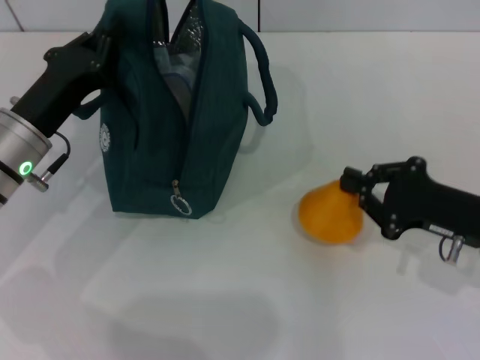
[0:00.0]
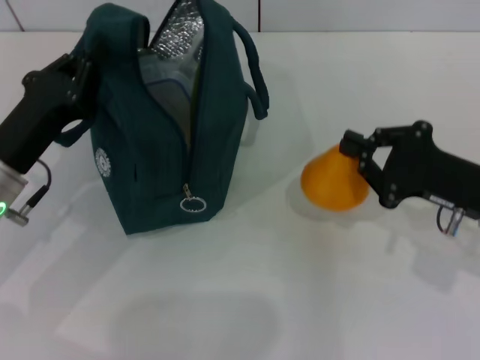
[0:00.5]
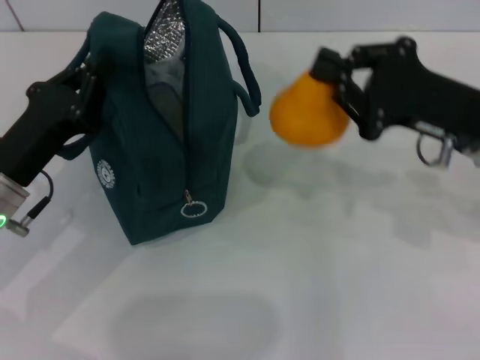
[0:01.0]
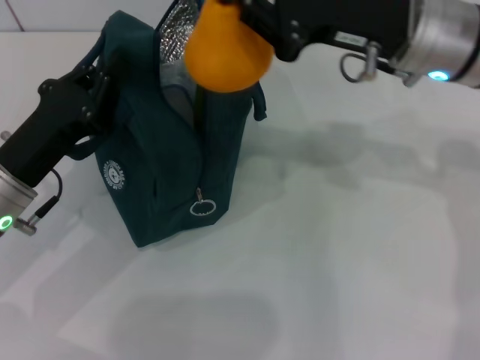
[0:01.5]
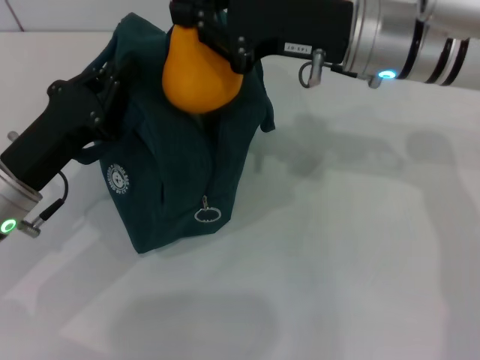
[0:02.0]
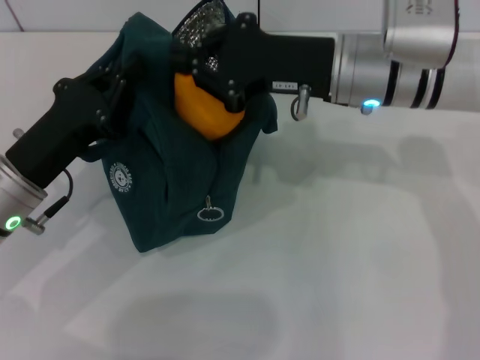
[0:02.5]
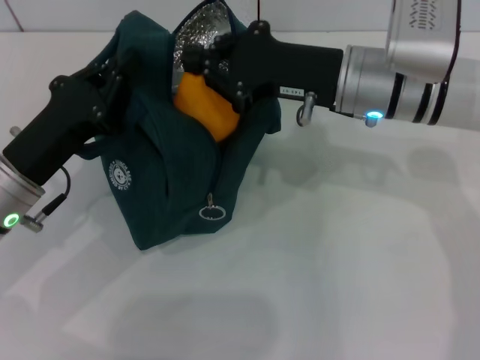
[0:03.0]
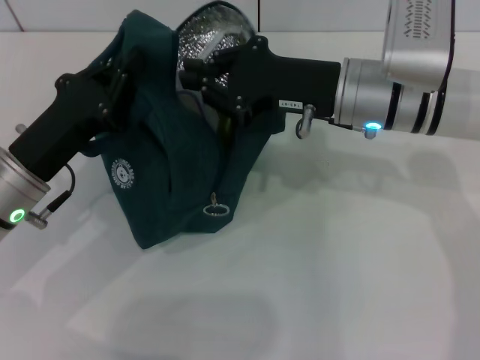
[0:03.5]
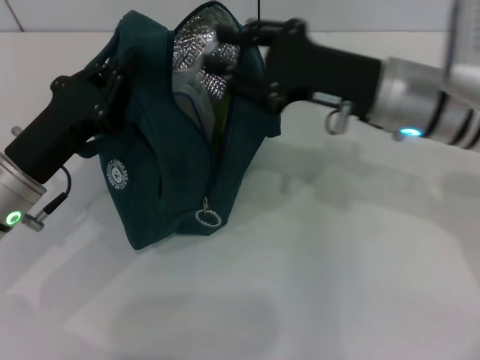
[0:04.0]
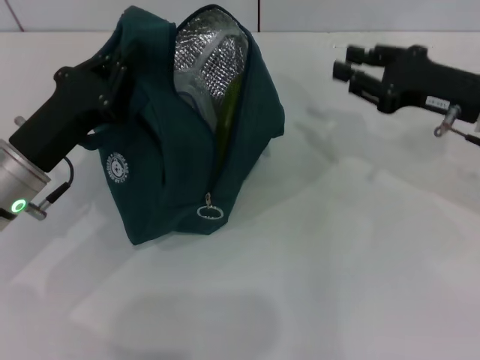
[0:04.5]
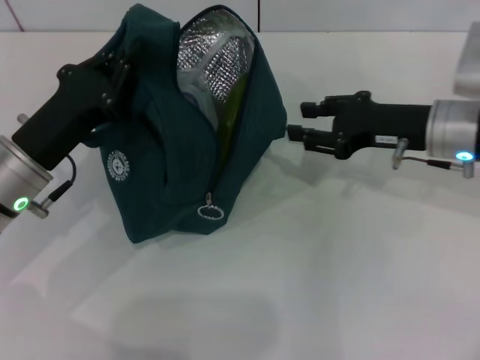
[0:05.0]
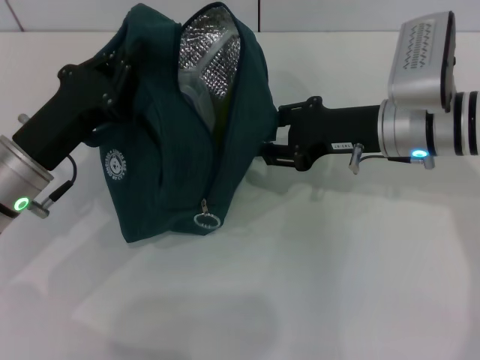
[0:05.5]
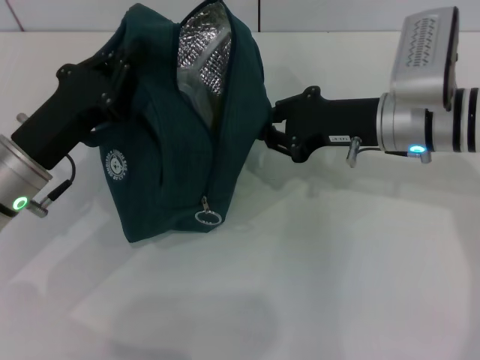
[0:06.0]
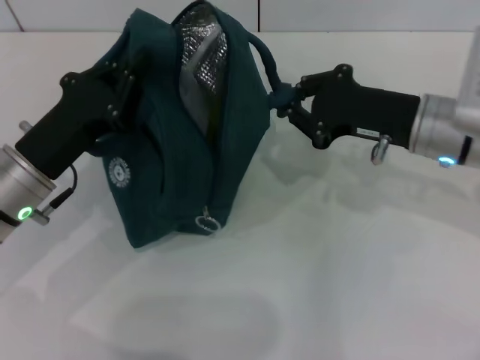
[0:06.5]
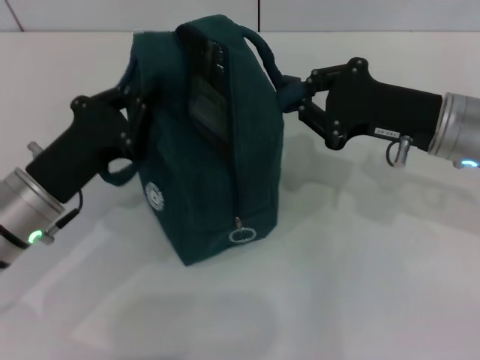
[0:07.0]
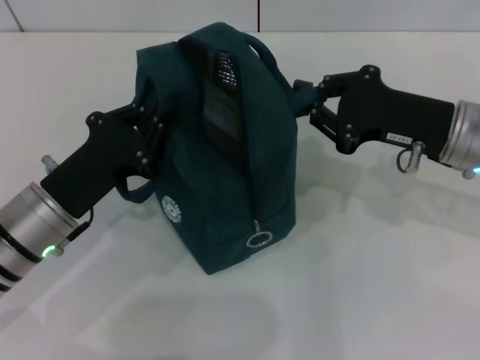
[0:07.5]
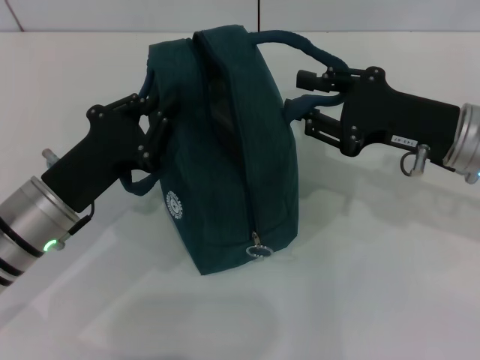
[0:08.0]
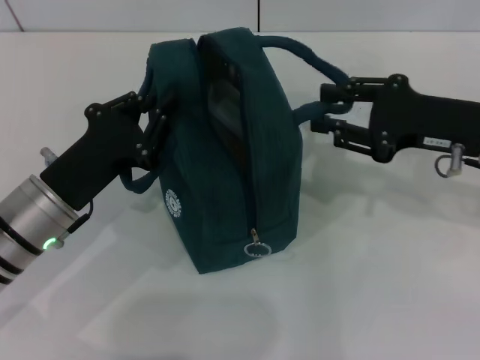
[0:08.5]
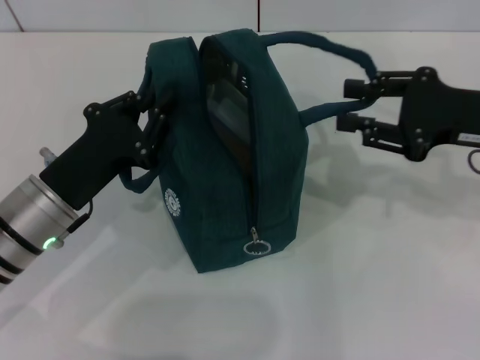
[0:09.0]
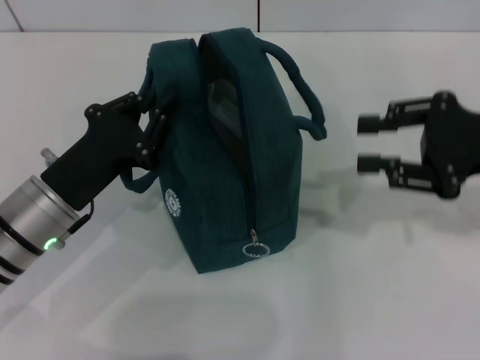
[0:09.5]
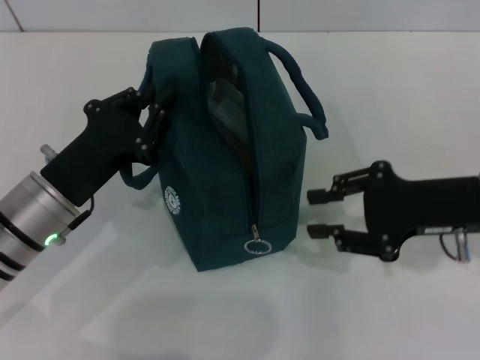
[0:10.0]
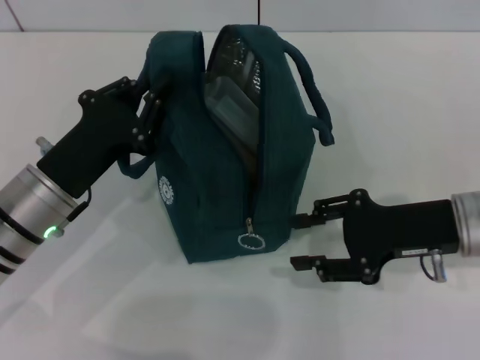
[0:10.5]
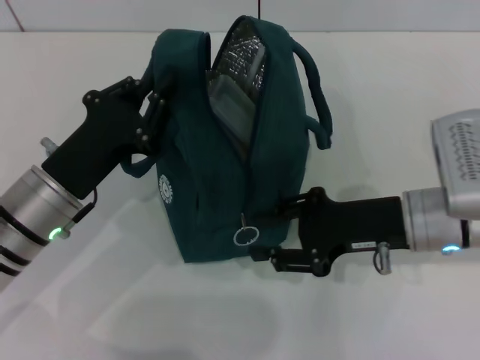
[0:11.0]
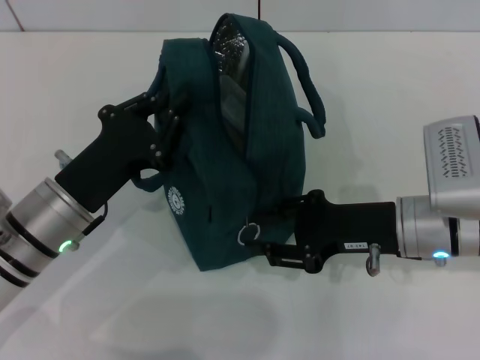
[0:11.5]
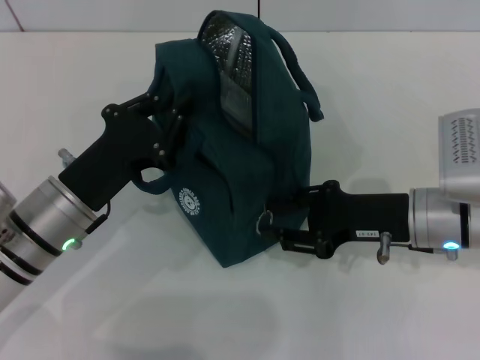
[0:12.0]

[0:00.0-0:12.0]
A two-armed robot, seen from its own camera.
Step, 0:00.0 to 0:03.5: Secure the lunch bag with your left hand.
Step, 0:04.0 to 0:09.0: Hold the lunch bag with your right hand.
0:00.0 to 0:02.0: The left gripper heads backward, covering approximately 5 cm. Meanwhile the right gripper is displaced to the left, upward and forward by about 25 cm.
0:02.0 to 0:04.0: The right gripper shifts by some 5 cm.
0:04.0 to 0:06.0: The right gripper reaches roughly 10 cm to the right, then returns.
0:06.0 to 0:08.0: The right gripper travels to the right by roughly 5 cm.
0:10.0 to 0:12.0: The right gripper moves approximately 5 cm.

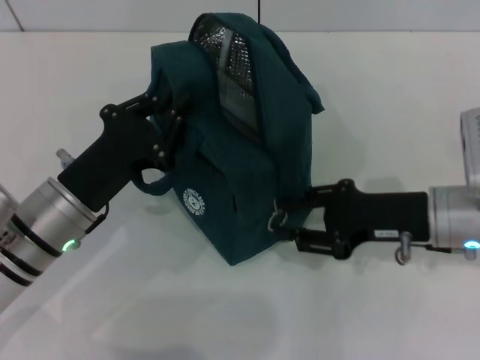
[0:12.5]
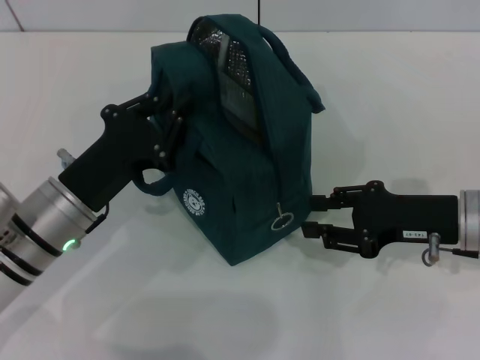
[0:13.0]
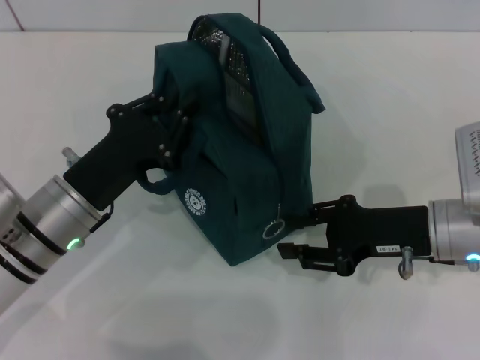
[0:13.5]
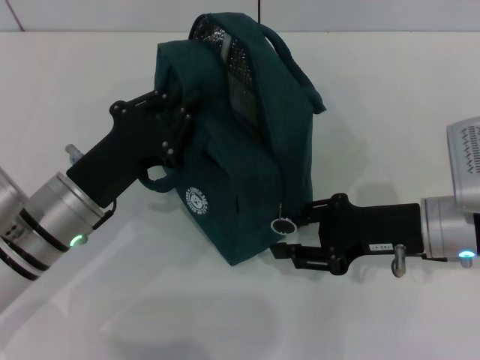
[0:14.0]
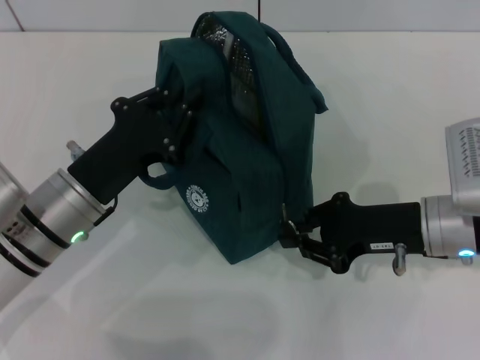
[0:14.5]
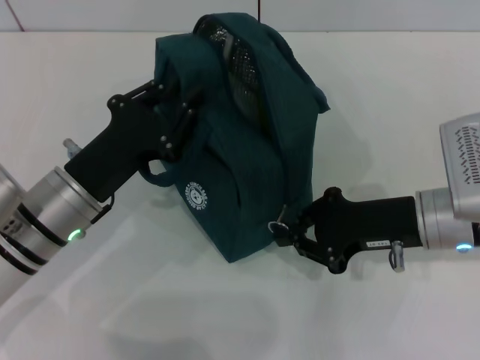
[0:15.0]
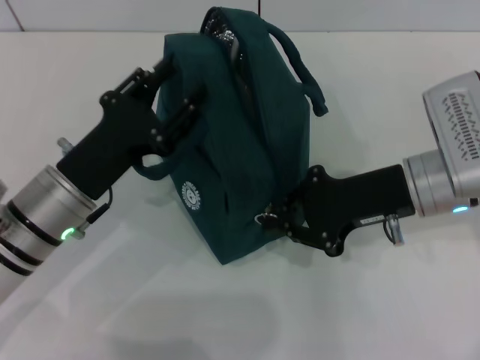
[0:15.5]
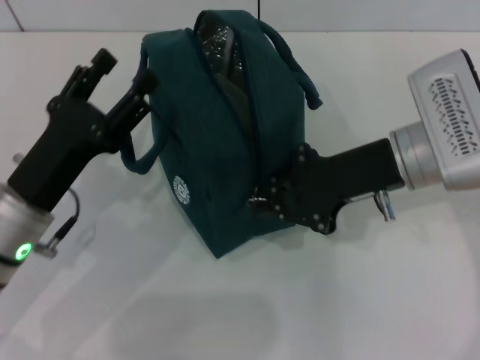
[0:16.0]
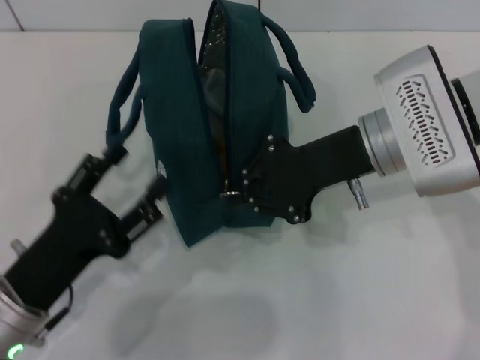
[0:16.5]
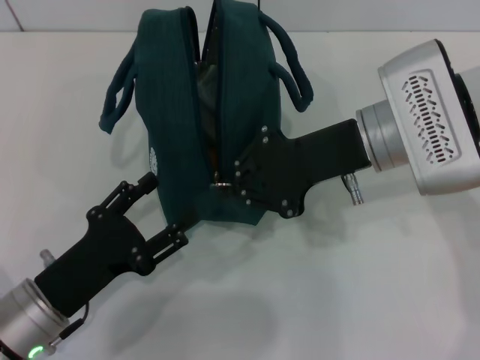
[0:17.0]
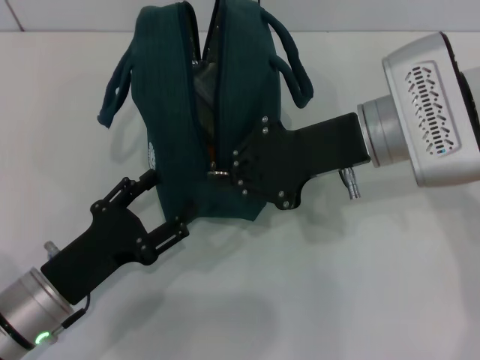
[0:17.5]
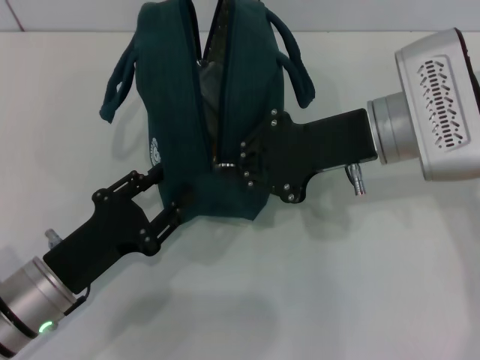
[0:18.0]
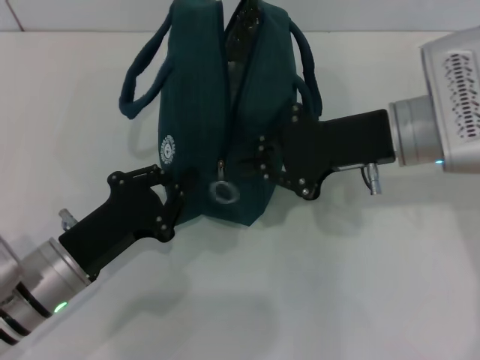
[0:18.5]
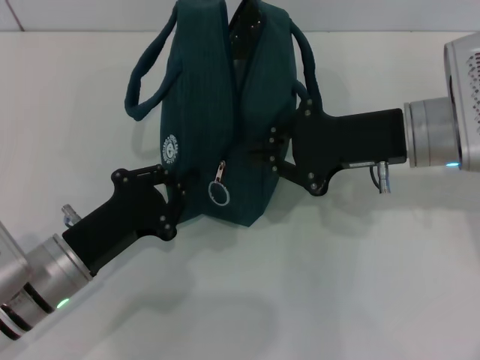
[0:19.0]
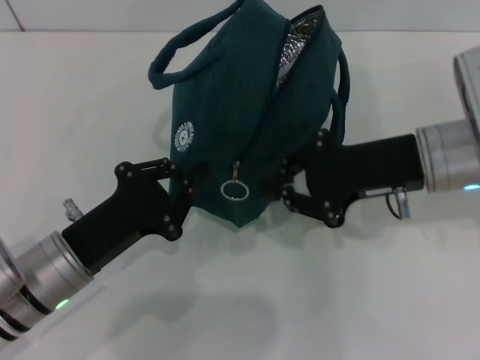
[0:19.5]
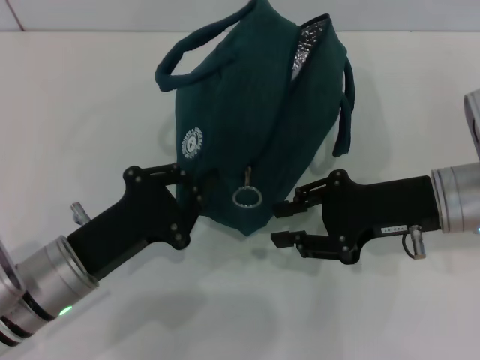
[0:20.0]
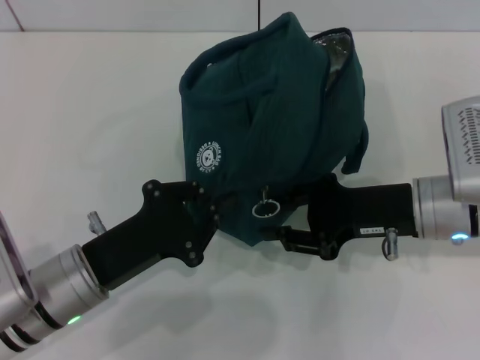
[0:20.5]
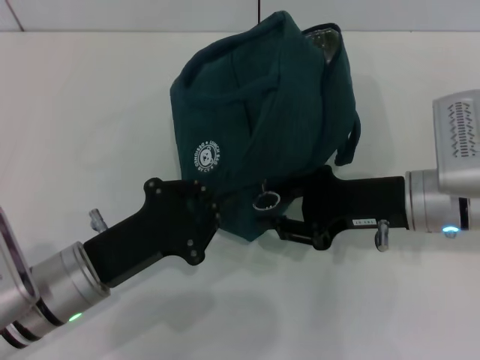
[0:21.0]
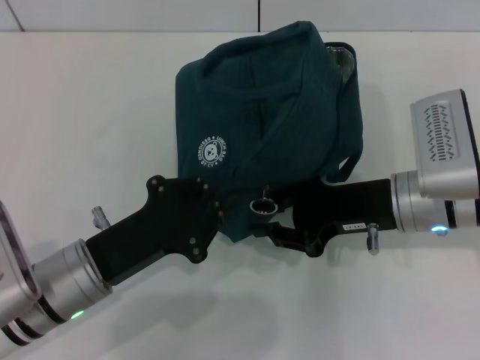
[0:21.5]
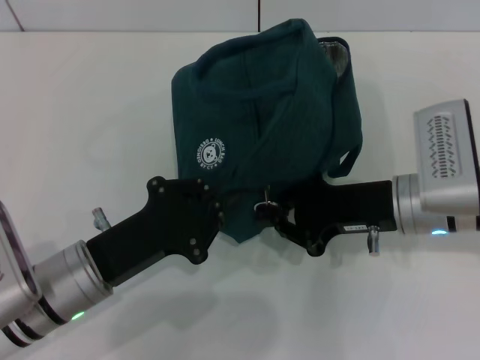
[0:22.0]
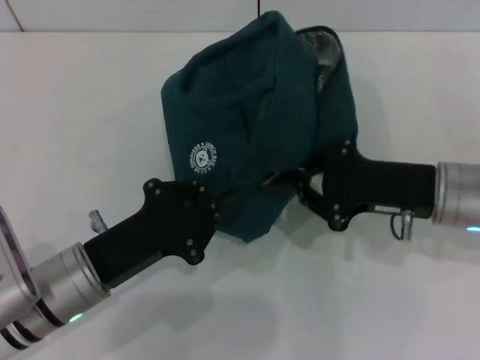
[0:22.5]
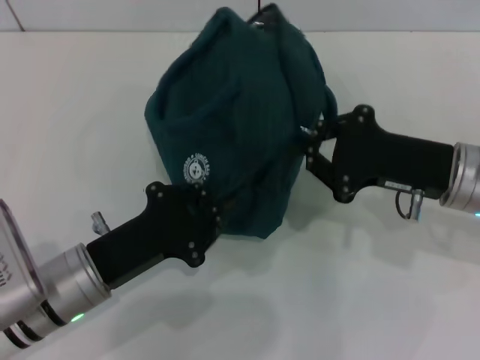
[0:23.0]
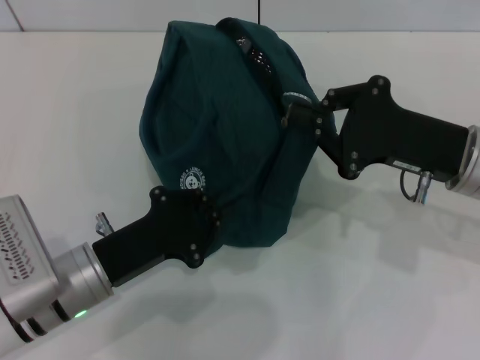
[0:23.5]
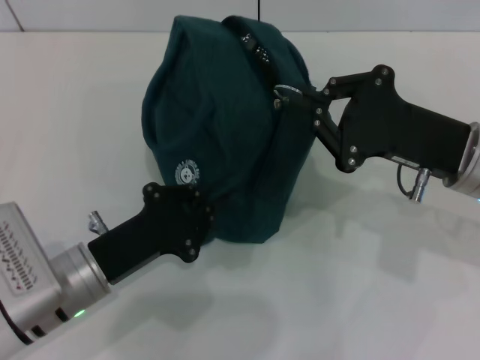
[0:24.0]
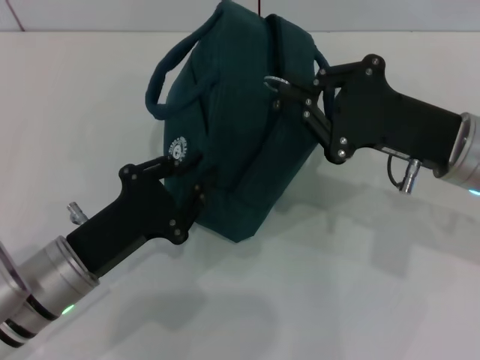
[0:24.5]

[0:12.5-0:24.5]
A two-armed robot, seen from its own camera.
Step, 0:12.5 to 0:15.0: Hold the lunch bag with your left hand.
0:12.5 to 0:14.5: The grippers move only a little.
0:14.5 to 0:16.5: The left gripper moves backward, roughly 10 cm, and opens. The right gripper goes roughly 10 cm upward and to the left.
0:16.5 to 0:18.5: The left gripper ends up some 5 cm from where it was, and closes.
0:18.5 to 0:20.5: The right gripper heads downward, covering approximately 5 cm.
0:20.5 to 0:22.5: The right gripper closes.

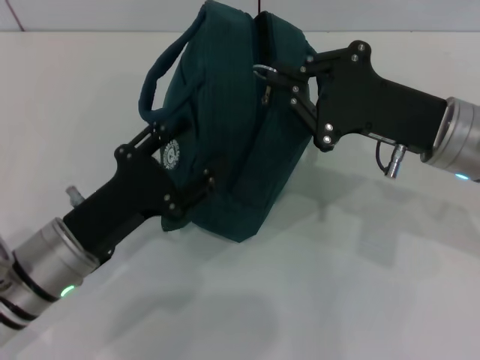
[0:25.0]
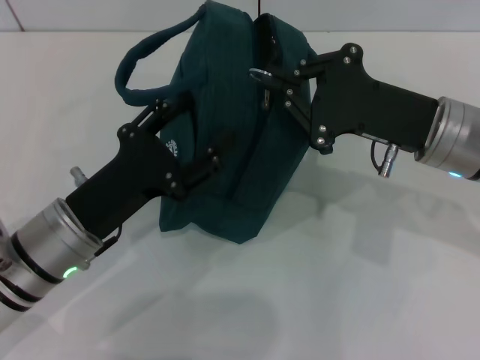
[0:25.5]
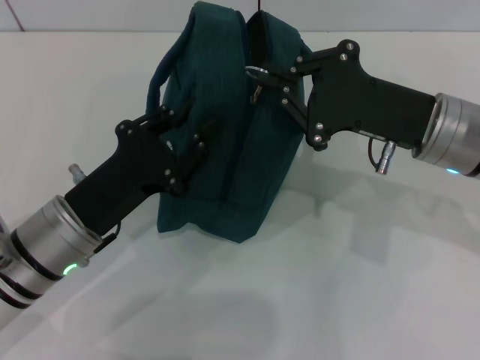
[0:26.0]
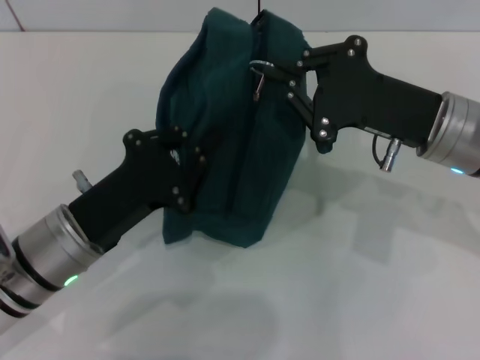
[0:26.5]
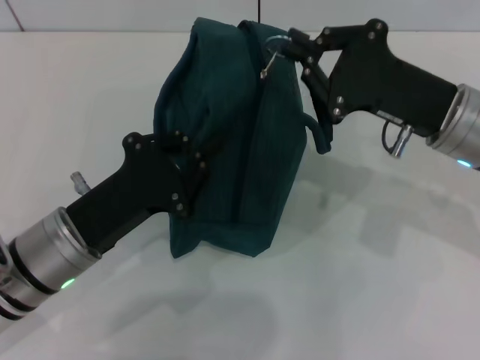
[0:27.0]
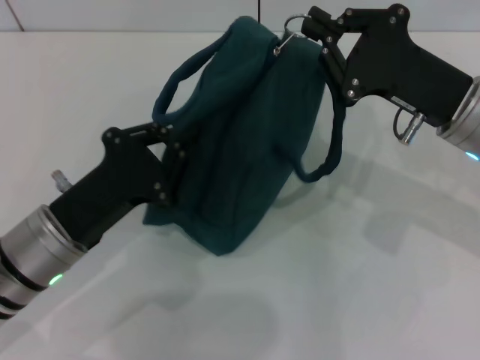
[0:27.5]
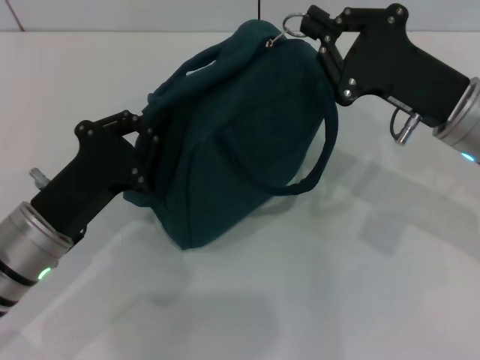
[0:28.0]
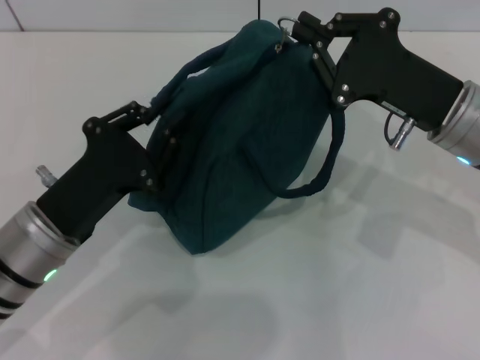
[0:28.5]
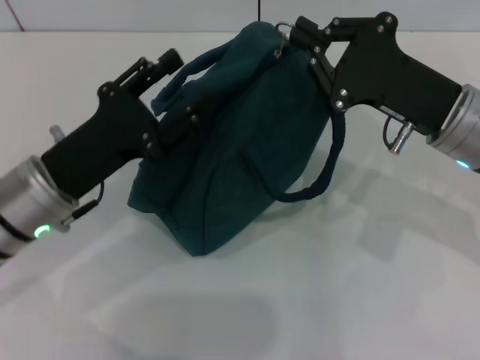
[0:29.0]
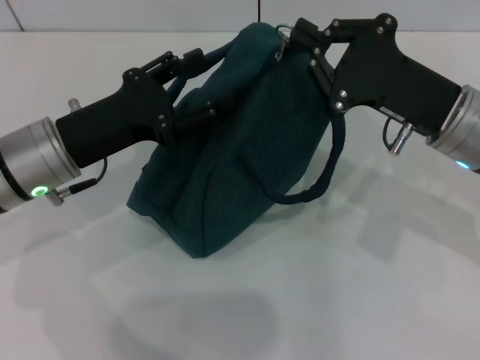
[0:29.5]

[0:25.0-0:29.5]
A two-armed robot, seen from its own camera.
0:25.0 to 0:27.0: The left gripper closes its fingers.
0:27.0 to 0:29.5: The left gripper heads forward, covering some 5 cm, and opens up.
